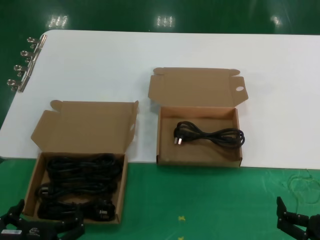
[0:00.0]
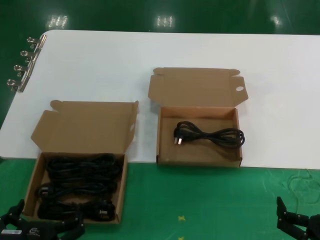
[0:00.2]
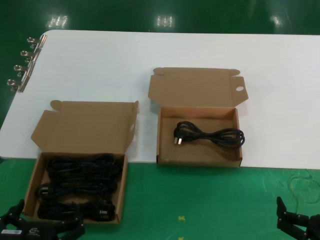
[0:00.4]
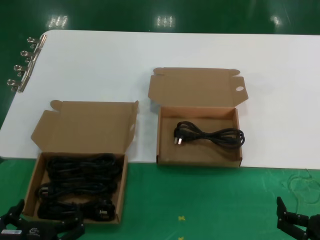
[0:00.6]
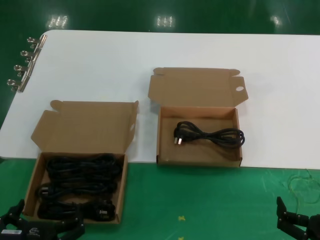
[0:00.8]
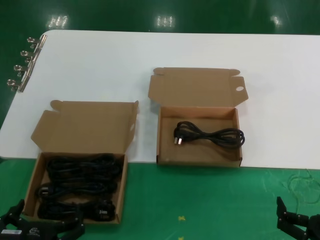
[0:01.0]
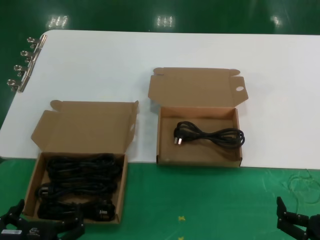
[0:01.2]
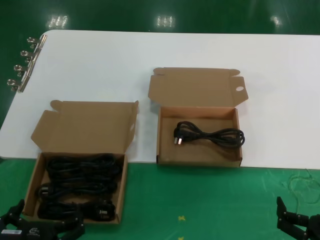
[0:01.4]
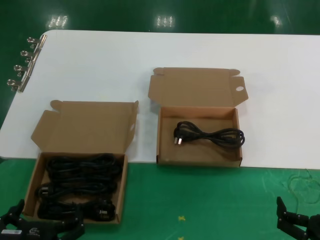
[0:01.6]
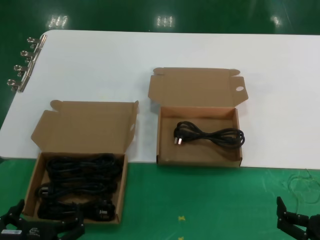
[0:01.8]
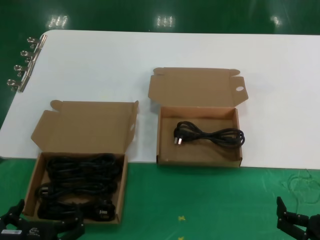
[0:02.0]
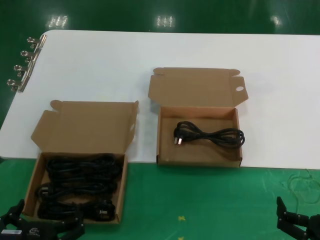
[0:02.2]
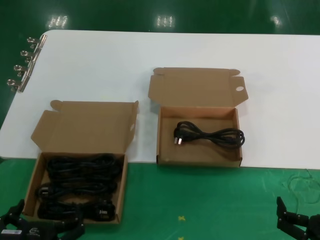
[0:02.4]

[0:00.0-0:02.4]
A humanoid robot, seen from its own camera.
Task of the whole recording: take the parts from the box containing them and put them into an empty box.
0:00.0 to 0:02.4: Both hands stay put.
